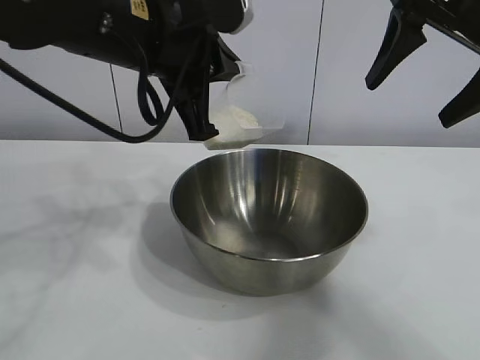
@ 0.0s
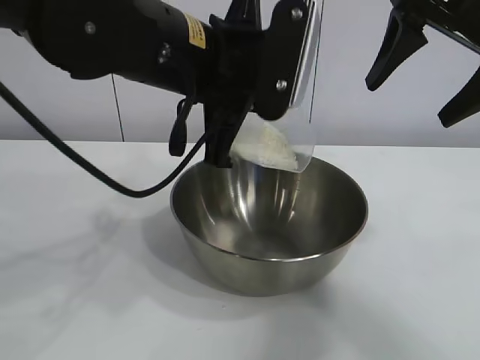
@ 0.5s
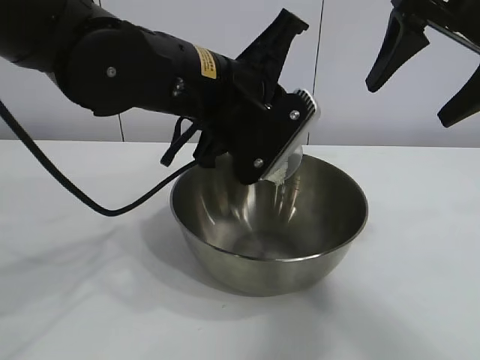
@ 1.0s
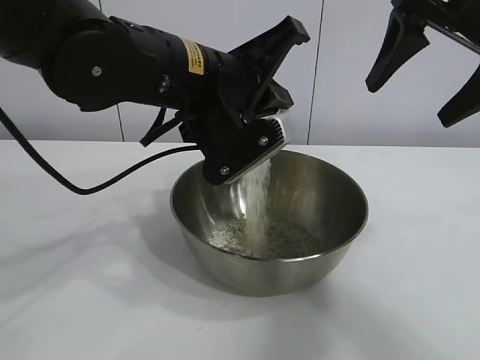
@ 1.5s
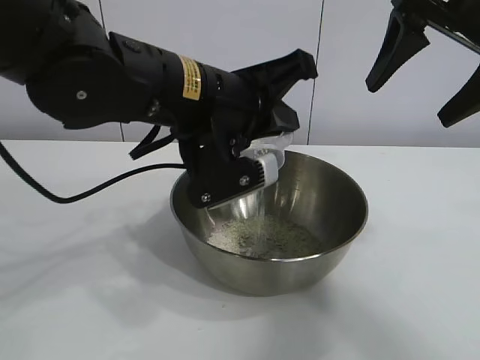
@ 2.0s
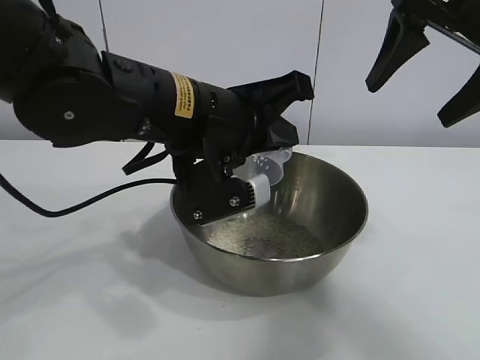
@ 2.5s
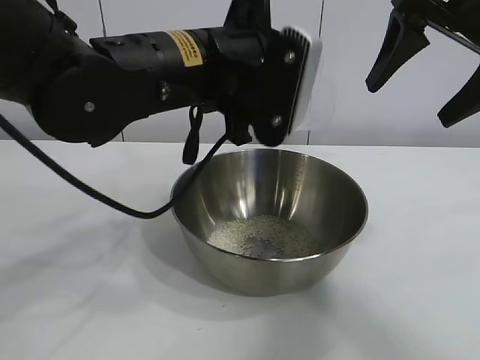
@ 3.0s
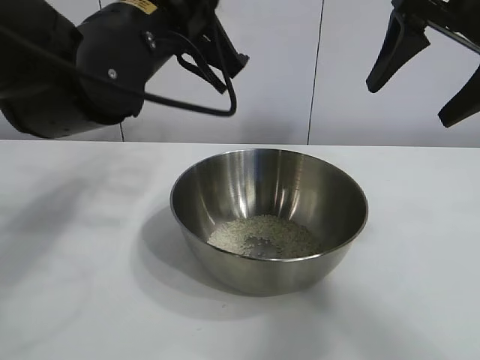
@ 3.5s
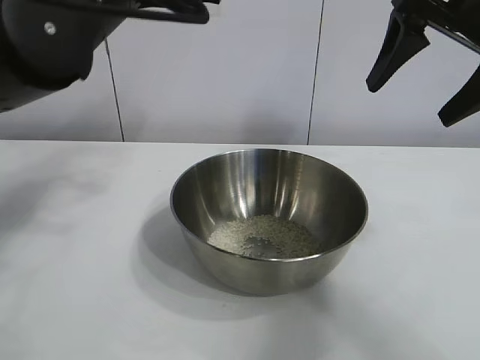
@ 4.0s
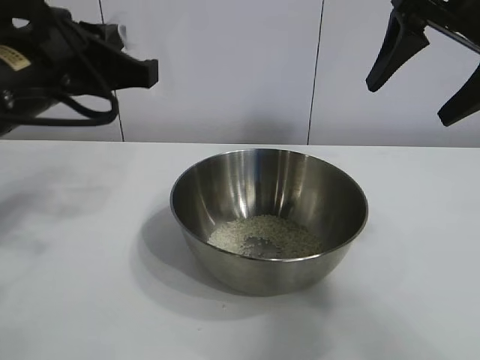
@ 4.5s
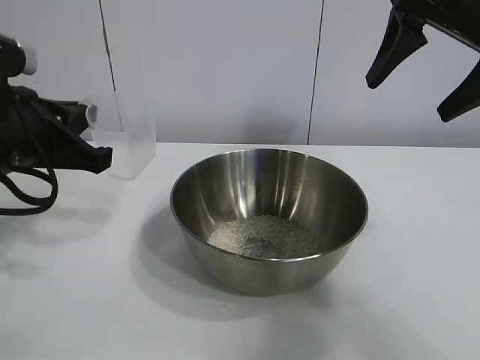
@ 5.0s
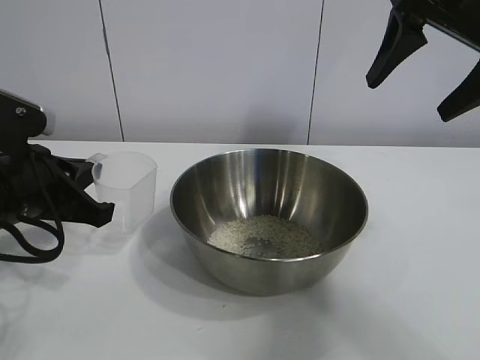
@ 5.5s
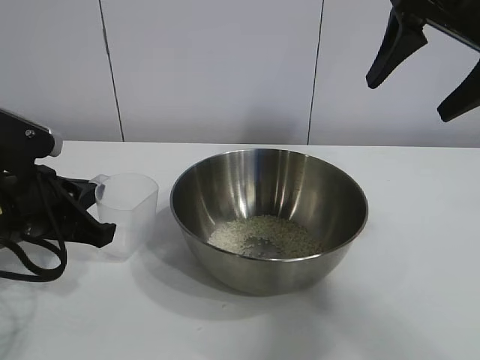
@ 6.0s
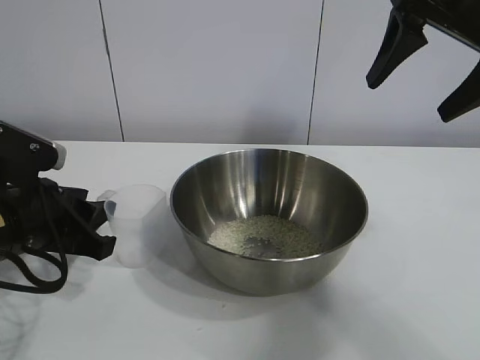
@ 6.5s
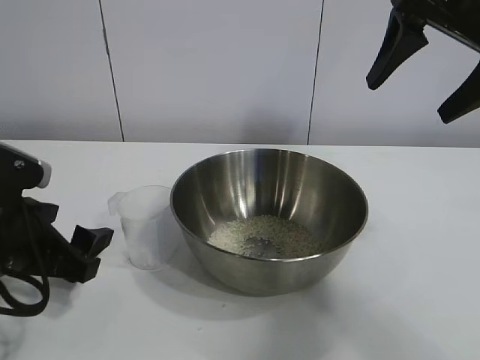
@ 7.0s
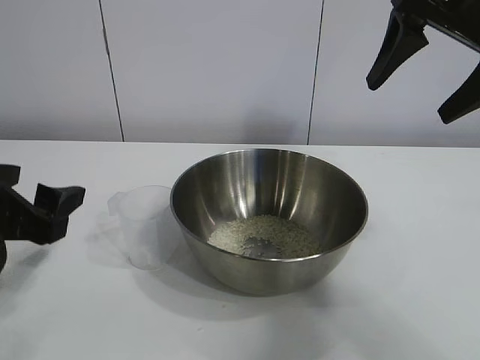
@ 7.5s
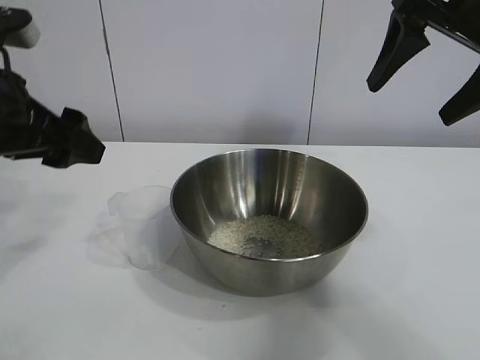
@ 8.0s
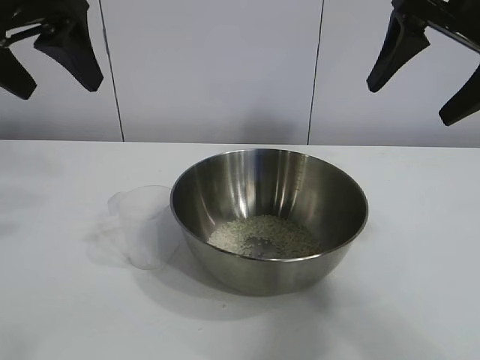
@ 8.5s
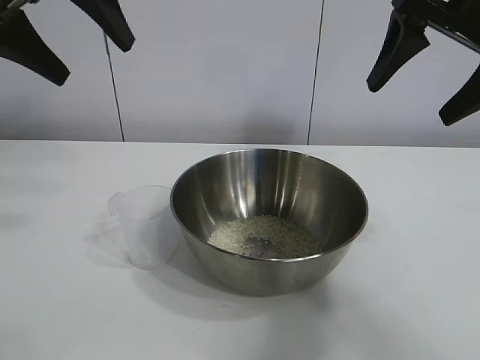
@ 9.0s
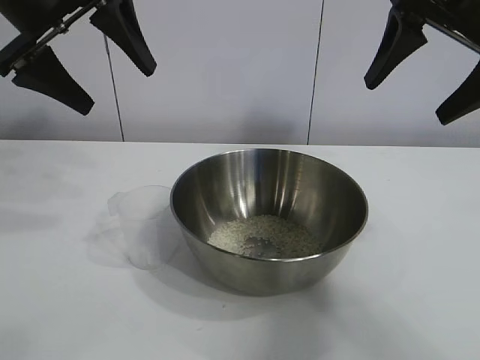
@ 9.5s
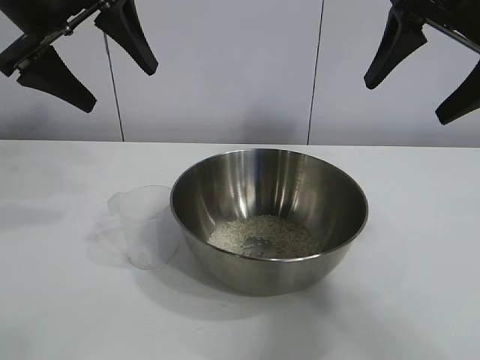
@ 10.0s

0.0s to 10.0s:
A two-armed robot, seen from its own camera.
Task of the whole recording: the right gripper grasp the rice container and place it in the center of the table, the left gripper grasp the rice scoop and pour the rice into the rice container.
Step, 0.0s to 2.0s: Pour the rice from the cup into the bowl with the left gripper.
Step, 2.5s to 6.5s: Place the cup on the table with the left gripper.
